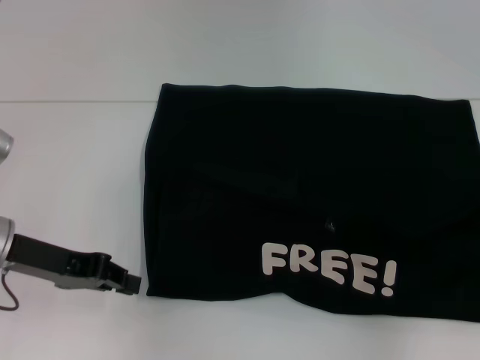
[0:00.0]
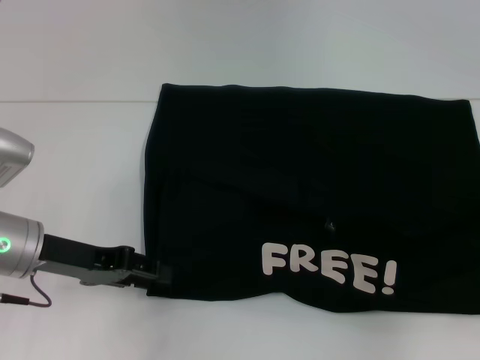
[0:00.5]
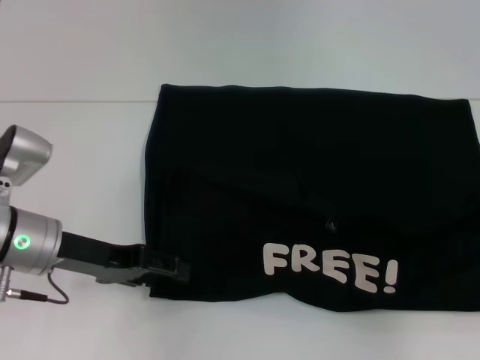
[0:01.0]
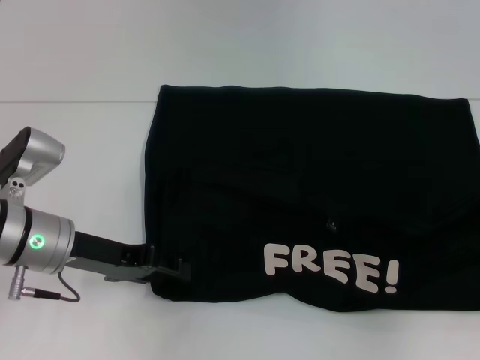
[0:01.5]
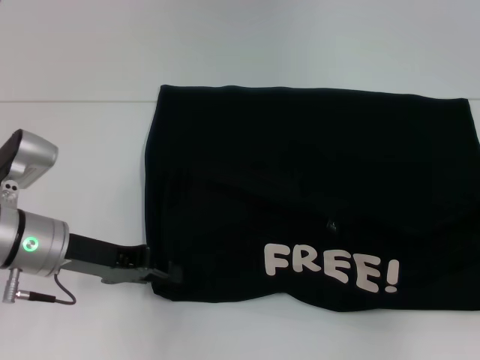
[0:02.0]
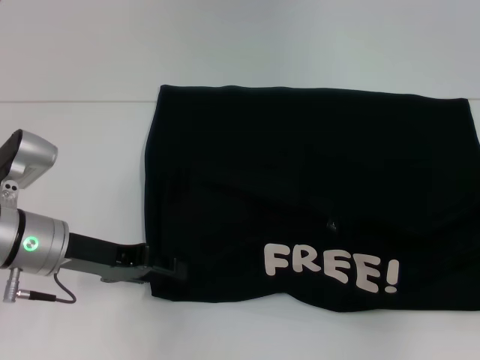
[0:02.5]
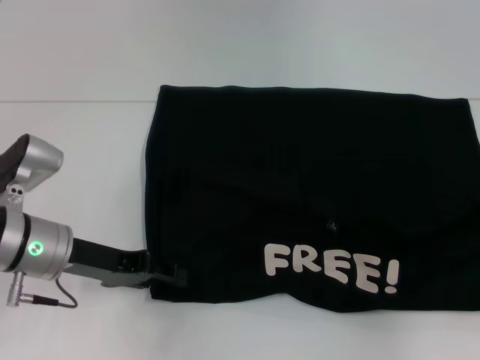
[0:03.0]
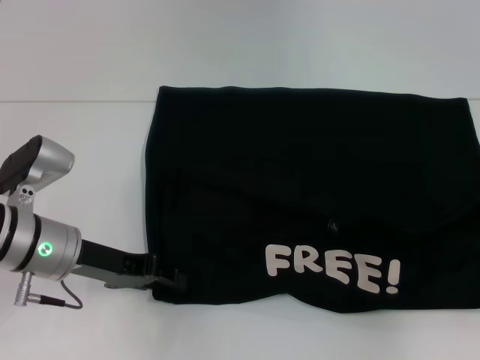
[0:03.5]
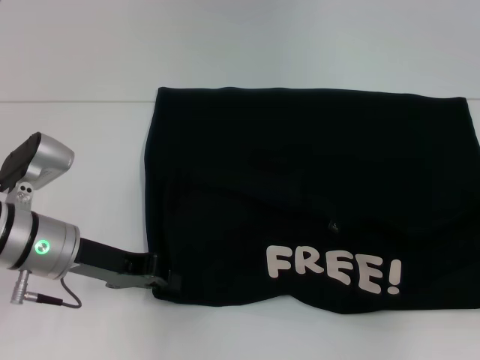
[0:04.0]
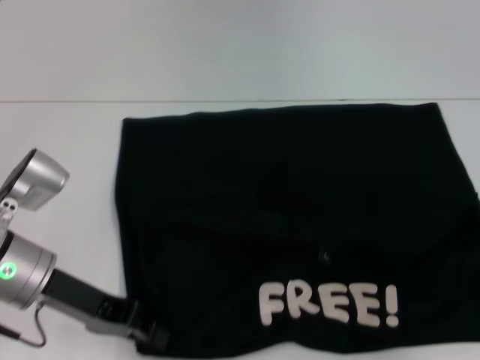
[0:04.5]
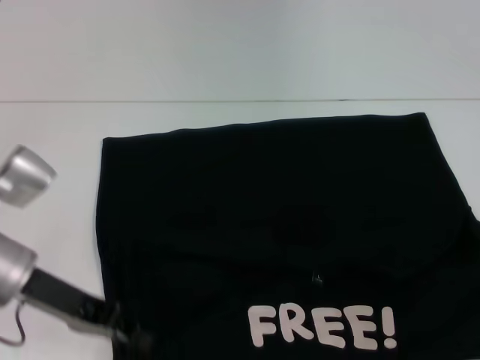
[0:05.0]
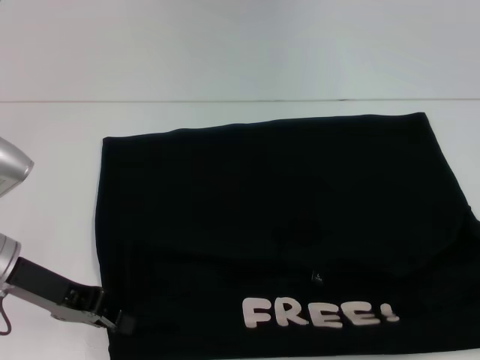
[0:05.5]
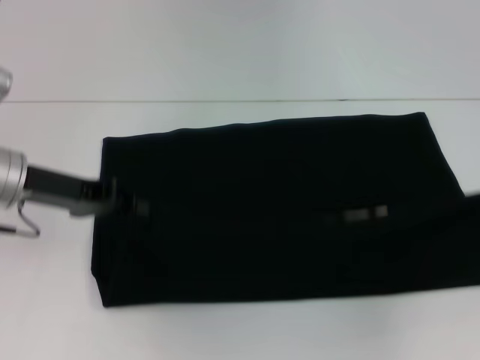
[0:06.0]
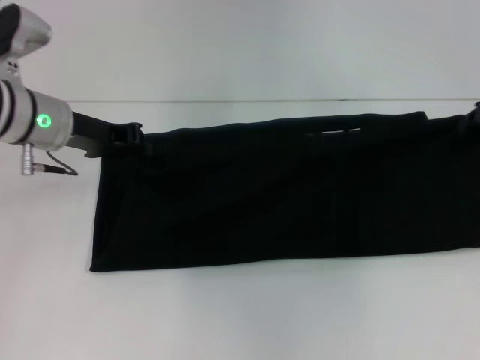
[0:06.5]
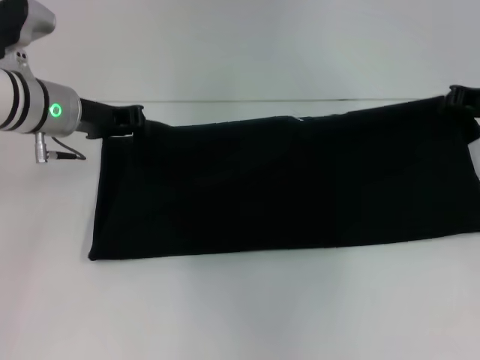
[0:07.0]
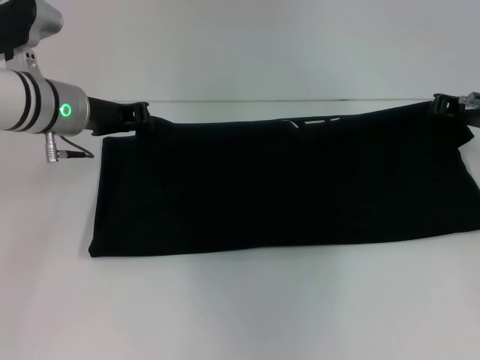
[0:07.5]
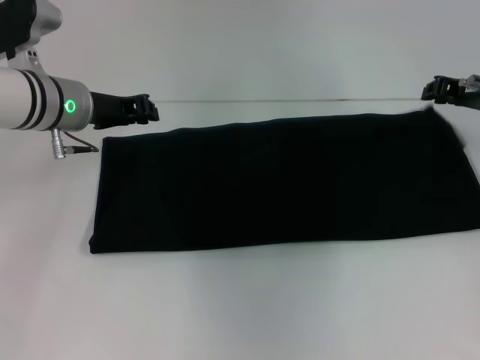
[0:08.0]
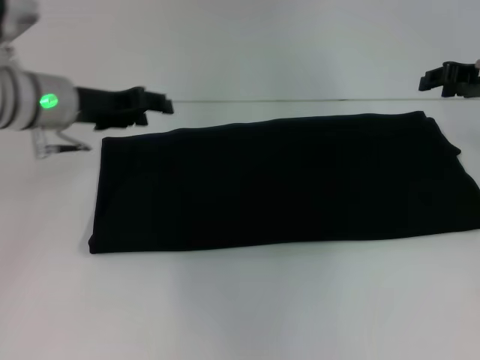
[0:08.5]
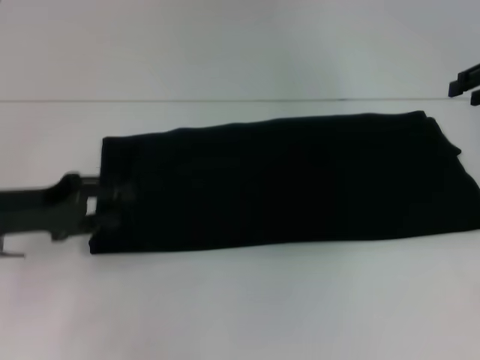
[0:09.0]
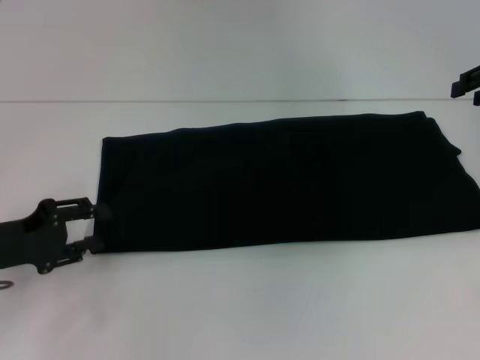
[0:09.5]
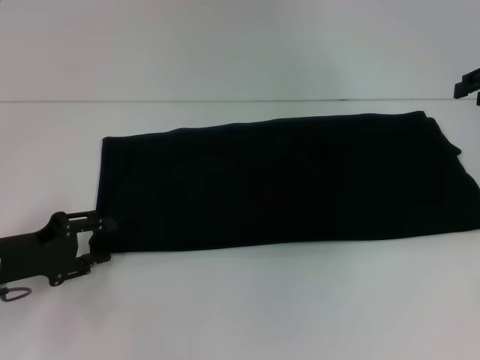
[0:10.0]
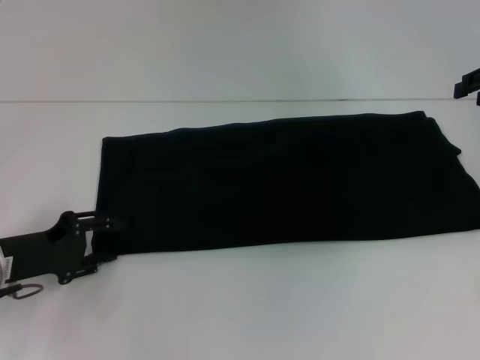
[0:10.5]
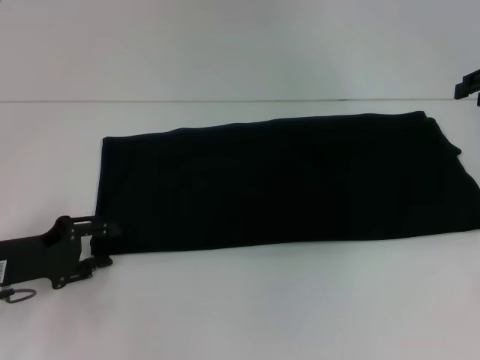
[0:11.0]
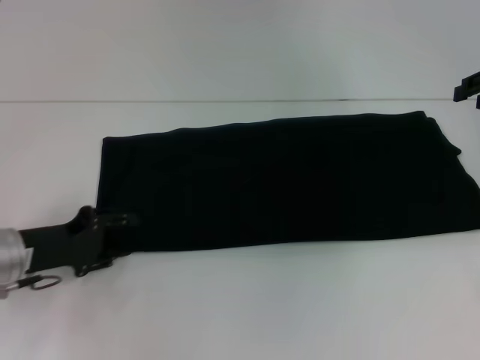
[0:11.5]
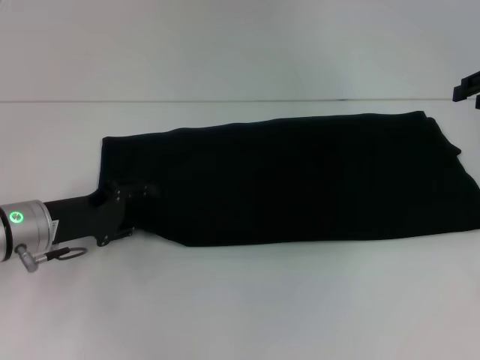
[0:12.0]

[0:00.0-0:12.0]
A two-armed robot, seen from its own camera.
Step, 0:00.0 to 0:04.5: Pull the clothes with your left hand.
Step, 0:00.0 to 0:04.5: Pull the clothes with your right hand.
Step, 0:05.0 to 0:08.5: Fold the clothes with your right hand.
0:00.0 to 0:02.0: The left gripper shifts by some 5 cm, and opens, then closes again.
0:02.0 to 0:04.0: The grippers move only a little.
0:04.0 to 0:06.0: The left gripper goes approximately 5 cm upward.
0:06.0 to 0:08.0: The right gripper travels forward and to the left by approximately 15 cm. The left gripper shifts about 10 cm forward and to the right.
0:08.0 to 0:10.0: The left gripper shifts about 20 cm backward, to the left and downward, and opens. The right gripper goes roughly 5 cm upward, and opens up.
0:10.0 to 0:12.0: The left gripper moves approximately 5 cm.

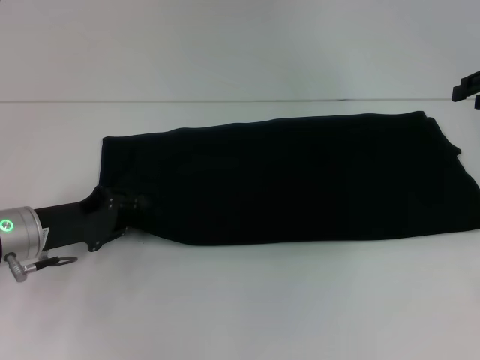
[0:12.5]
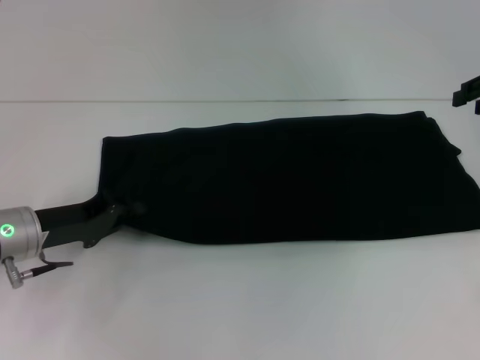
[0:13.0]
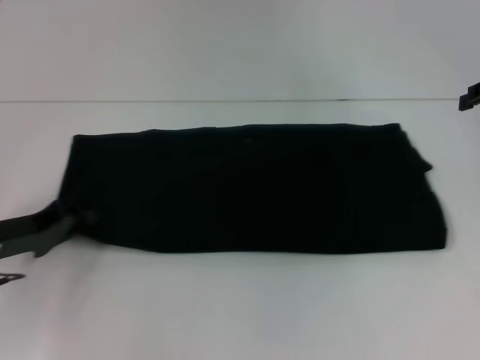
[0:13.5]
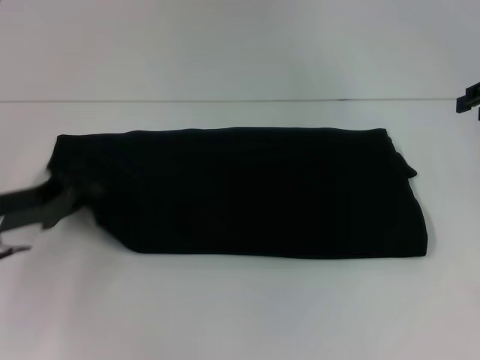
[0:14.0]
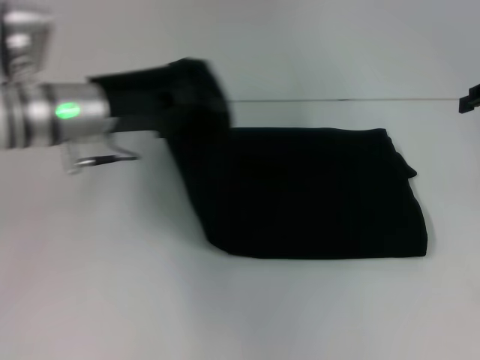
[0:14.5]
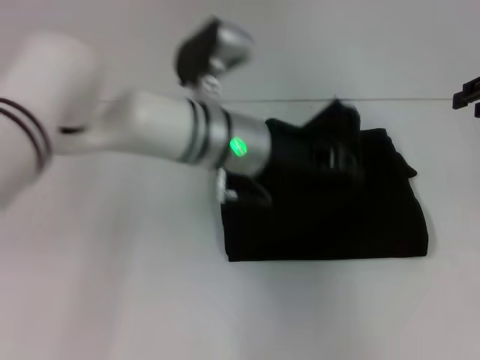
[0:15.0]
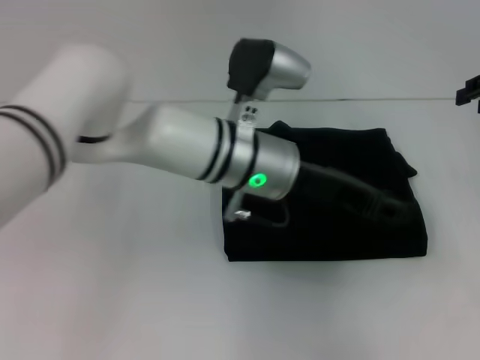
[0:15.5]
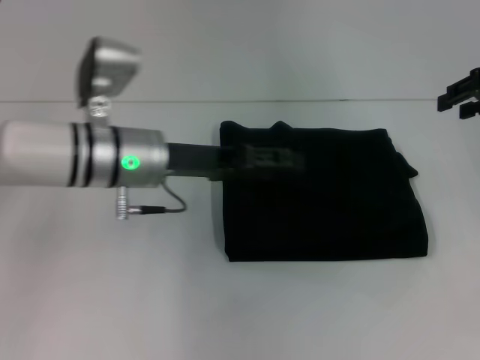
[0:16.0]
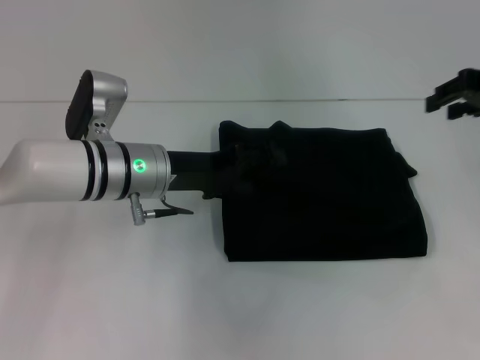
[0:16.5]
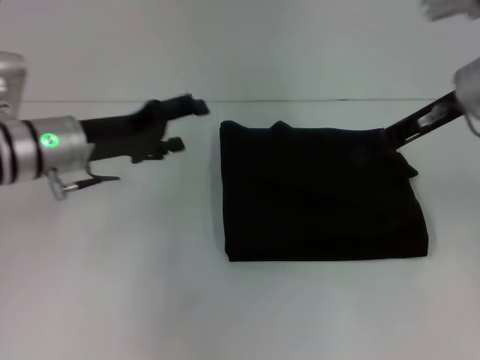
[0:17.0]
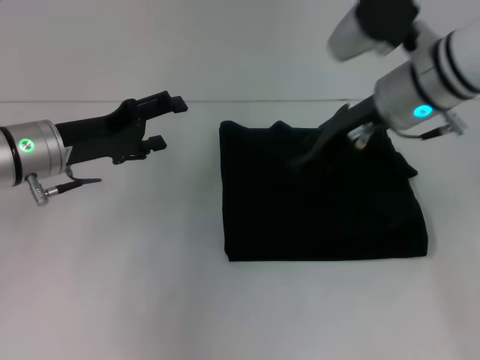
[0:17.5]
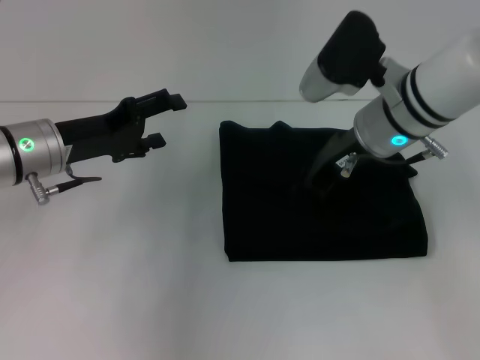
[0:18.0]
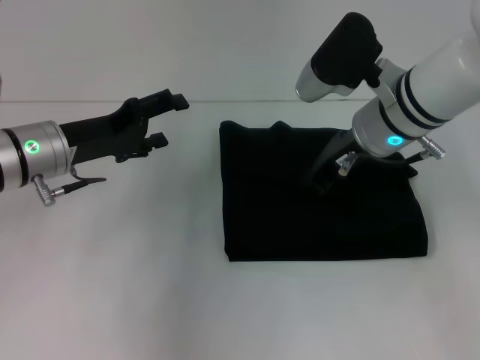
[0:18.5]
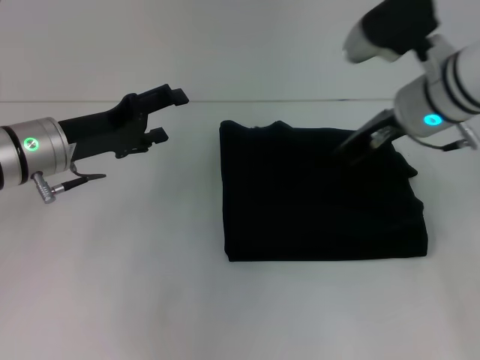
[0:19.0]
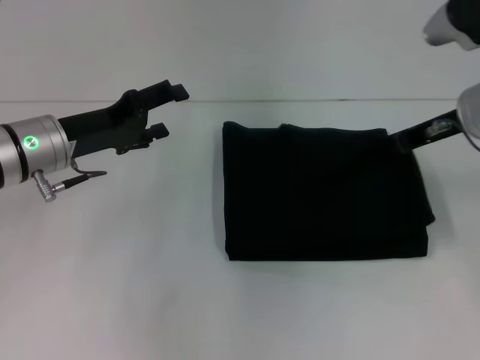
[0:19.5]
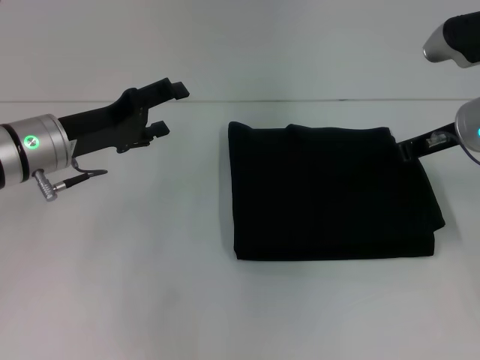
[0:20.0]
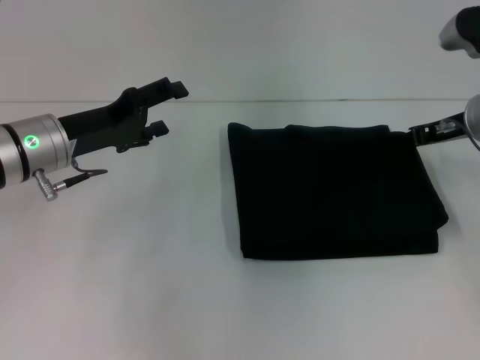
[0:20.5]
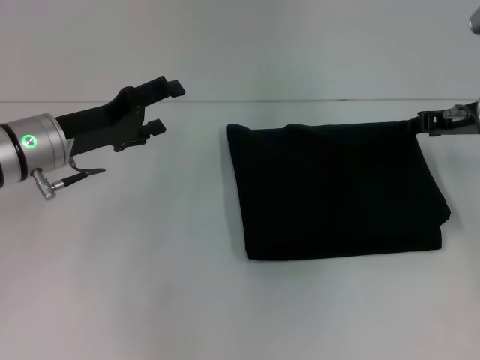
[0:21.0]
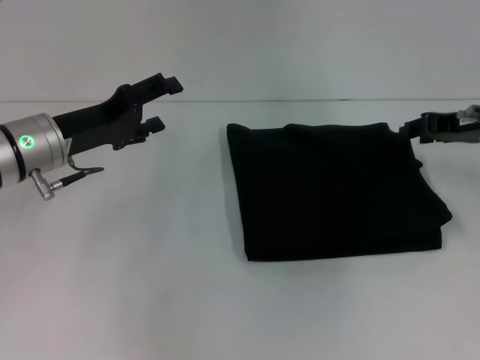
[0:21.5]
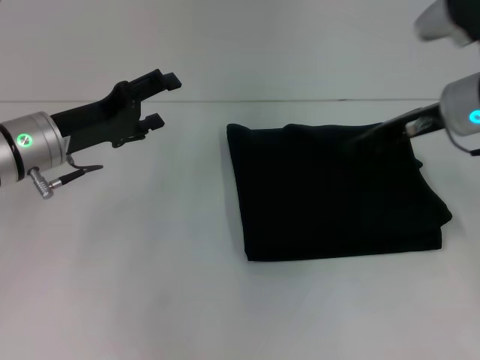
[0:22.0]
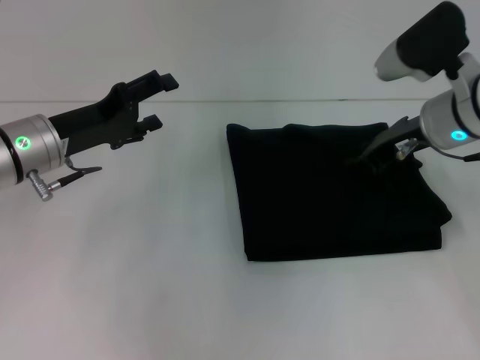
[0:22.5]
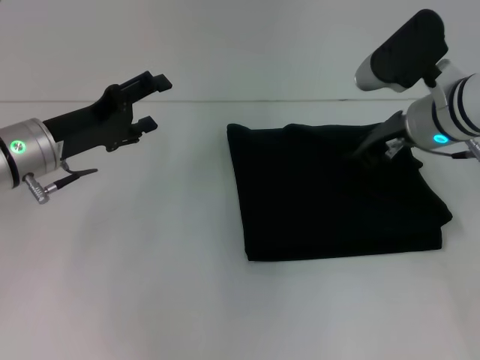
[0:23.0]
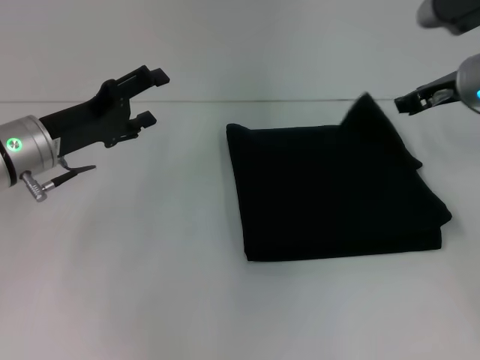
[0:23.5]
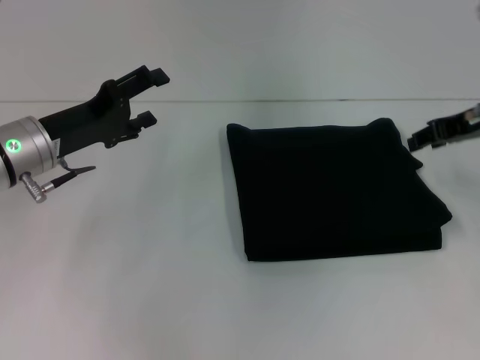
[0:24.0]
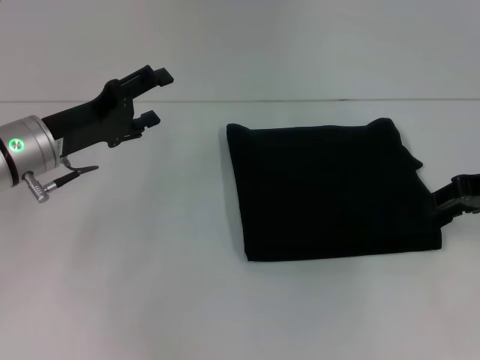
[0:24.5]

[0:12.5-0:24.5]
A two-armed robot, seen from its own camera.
Step, 0:12.5 to 0:16.0: Fold the clothes with your left hand.
0:12.5 to 0:14.5: The left gripper heads upward, to the right and forward, covering about 15 cm, and closes its fingers.
0:14.5 to 0:16.5: The left gripper moves downward, some 5 cm, goes to the right and returns, some 15 cm each way, and opens up.
0:16.5 to 0:18.5: The right gripper is displaced to the left by some 20 cm; the left gripper goes about 10 cm to the left.
0:18.5 to 0:20.5: The right gripper shifts some 10 cm to the right.
0:22.5 to 0:24.5: The right gripper travels to the right by approximately 10 cm.

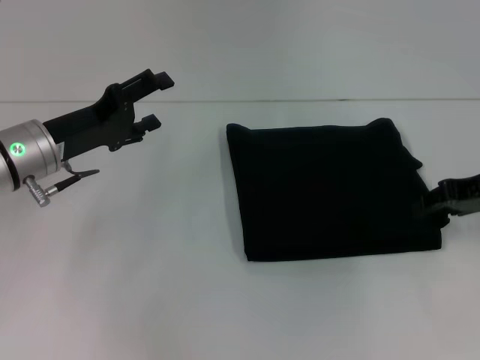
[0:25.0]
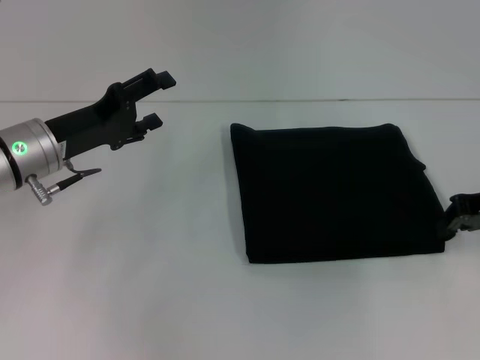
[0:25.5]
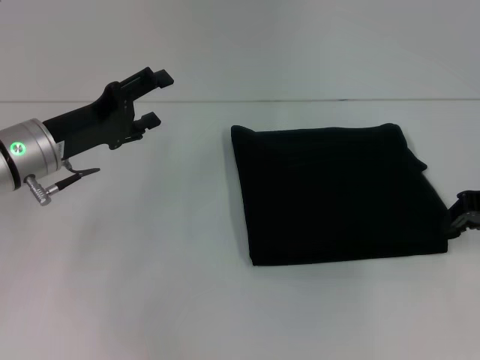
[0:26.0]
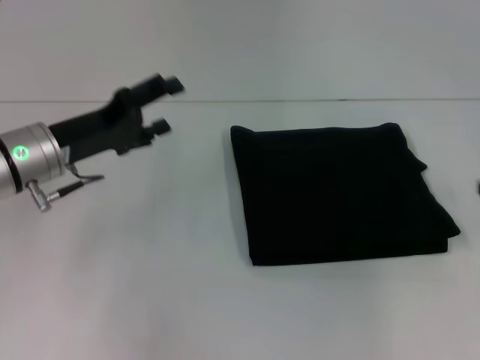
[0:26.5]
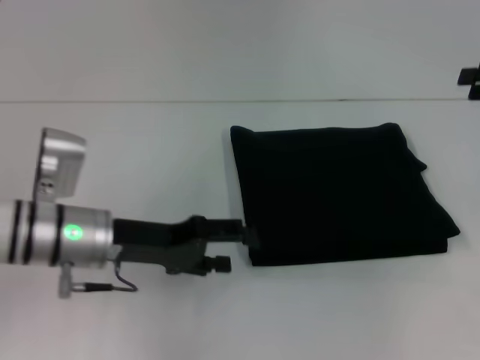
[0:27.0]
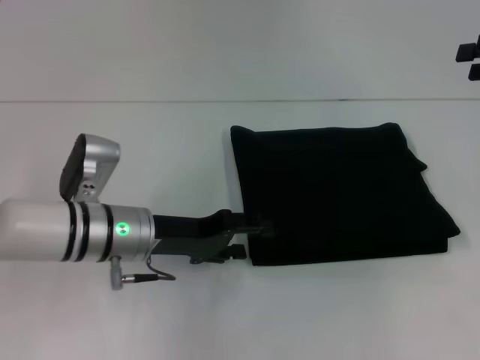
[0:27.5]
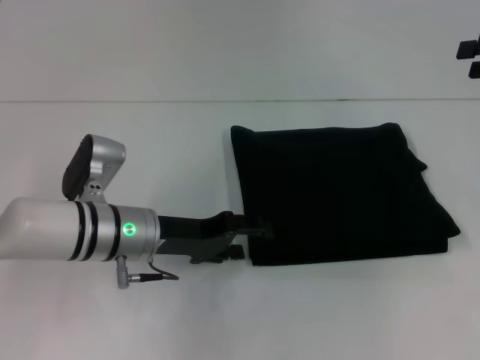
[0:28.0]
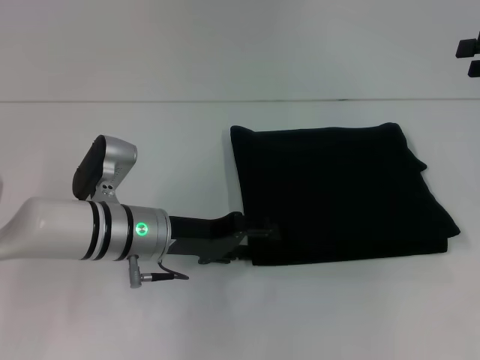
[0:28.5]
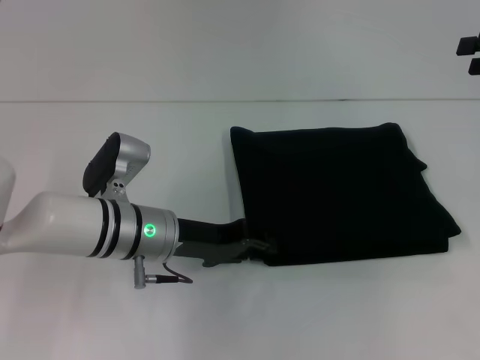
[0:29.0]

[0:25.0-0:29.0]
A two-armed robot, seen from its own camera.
0:25.0 to 0:27.0: The right gripper travels to the right and upward by approximately 10 cm. The left gripper shifts about 5 cm to the right.
0:27.0 to 0:29.0: The left gripper goes about 5 cm to the right, and closes its fingers.
